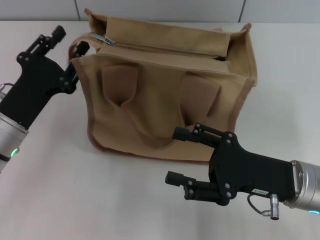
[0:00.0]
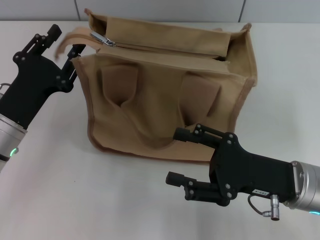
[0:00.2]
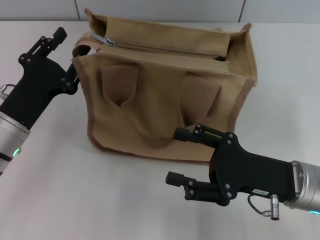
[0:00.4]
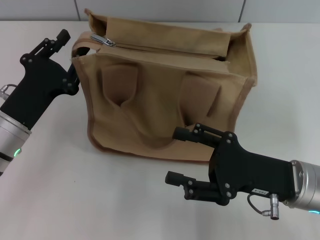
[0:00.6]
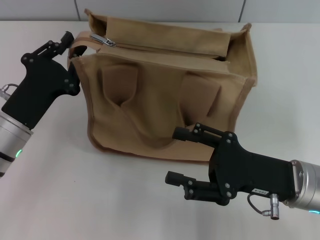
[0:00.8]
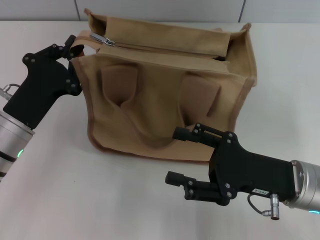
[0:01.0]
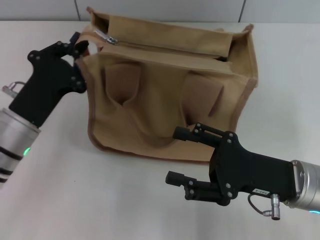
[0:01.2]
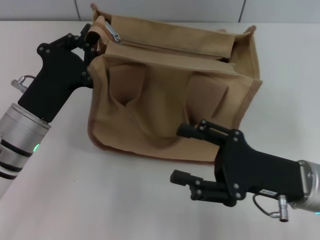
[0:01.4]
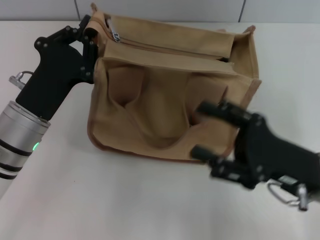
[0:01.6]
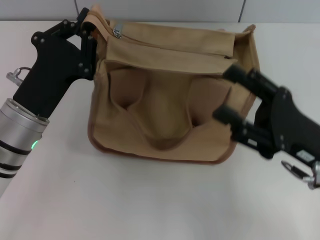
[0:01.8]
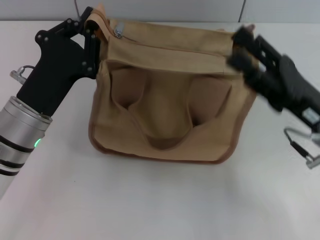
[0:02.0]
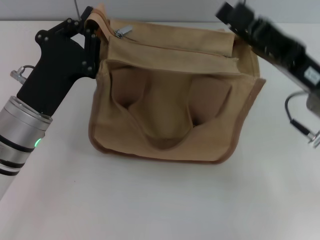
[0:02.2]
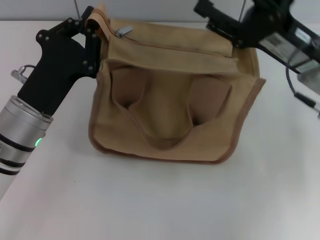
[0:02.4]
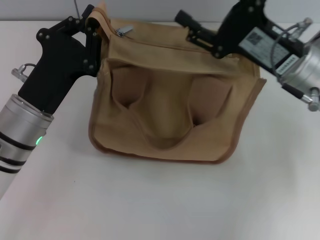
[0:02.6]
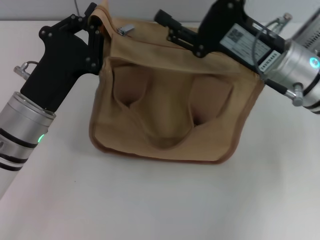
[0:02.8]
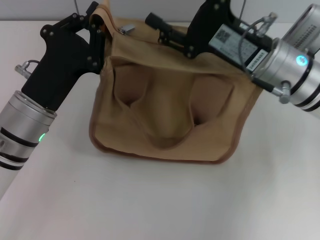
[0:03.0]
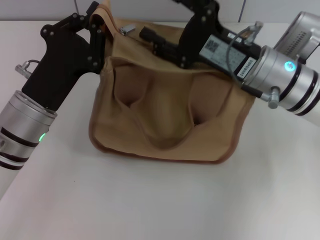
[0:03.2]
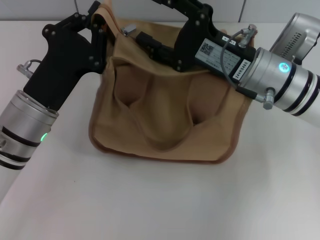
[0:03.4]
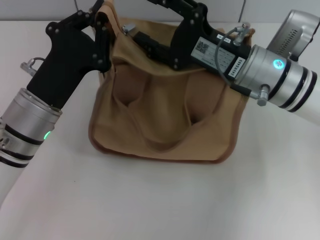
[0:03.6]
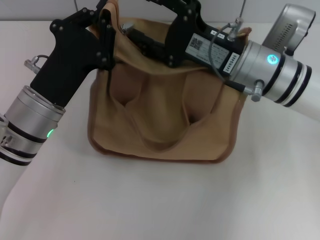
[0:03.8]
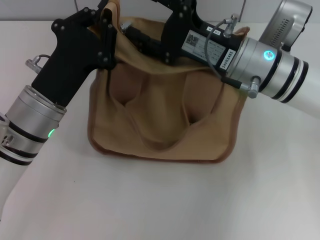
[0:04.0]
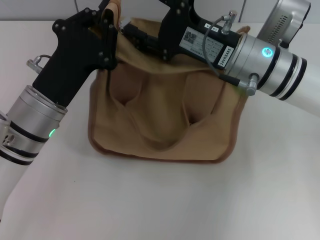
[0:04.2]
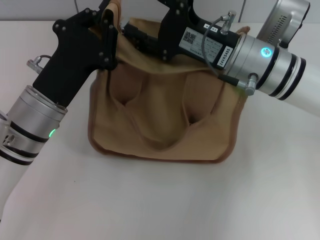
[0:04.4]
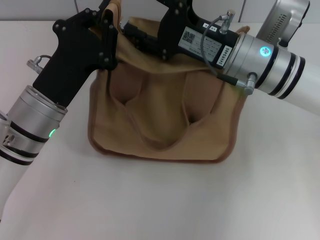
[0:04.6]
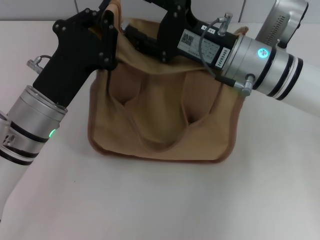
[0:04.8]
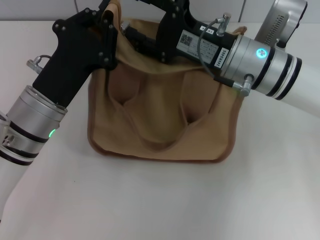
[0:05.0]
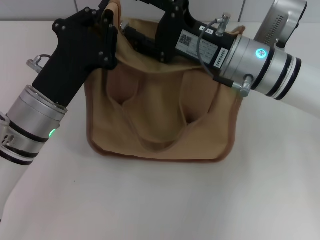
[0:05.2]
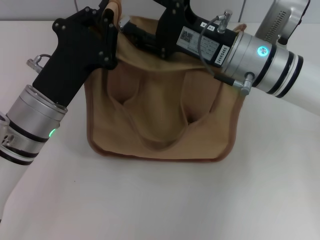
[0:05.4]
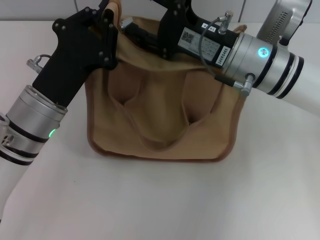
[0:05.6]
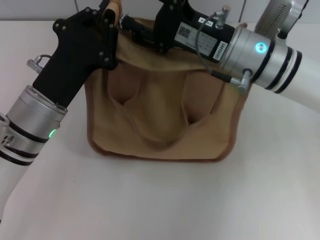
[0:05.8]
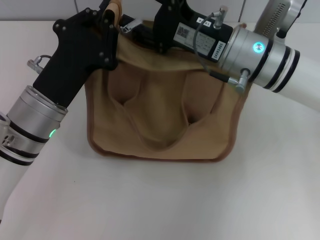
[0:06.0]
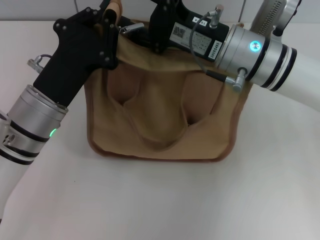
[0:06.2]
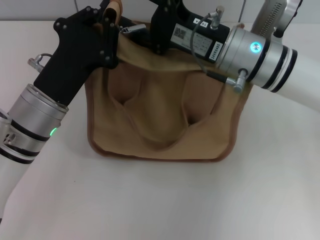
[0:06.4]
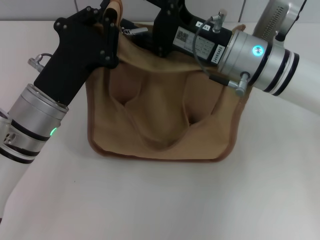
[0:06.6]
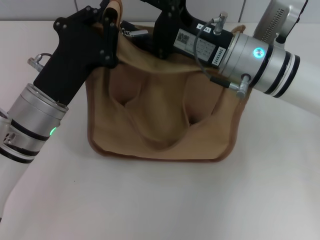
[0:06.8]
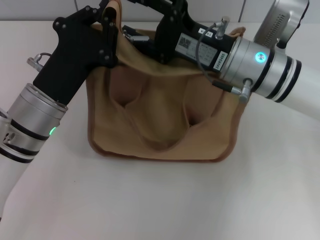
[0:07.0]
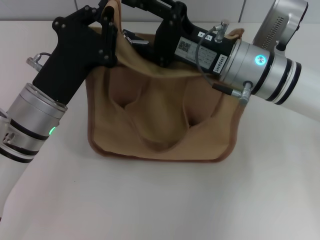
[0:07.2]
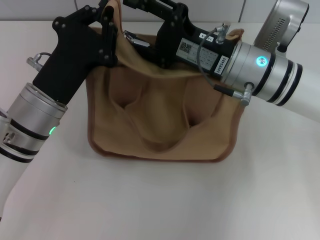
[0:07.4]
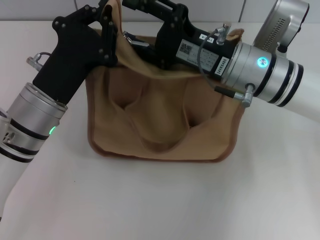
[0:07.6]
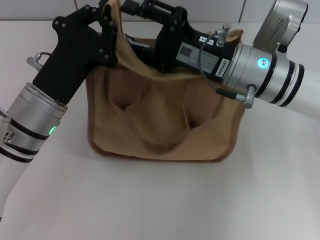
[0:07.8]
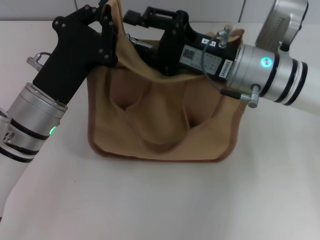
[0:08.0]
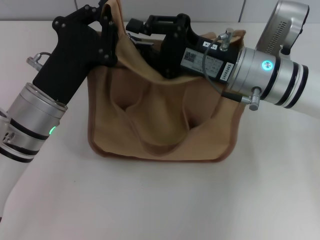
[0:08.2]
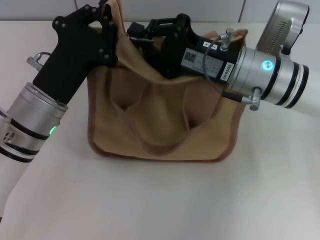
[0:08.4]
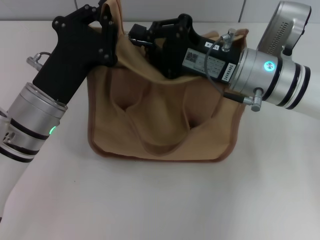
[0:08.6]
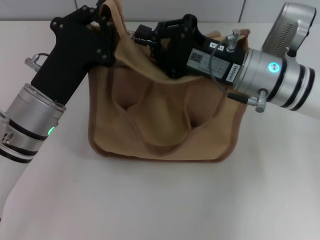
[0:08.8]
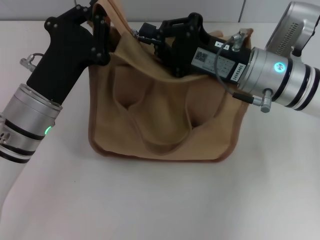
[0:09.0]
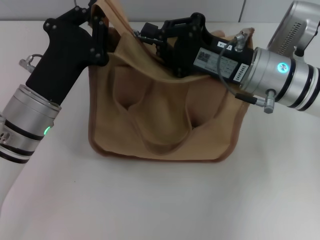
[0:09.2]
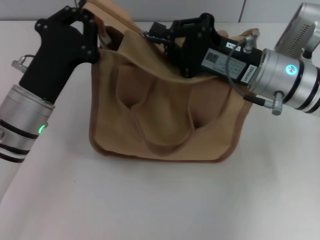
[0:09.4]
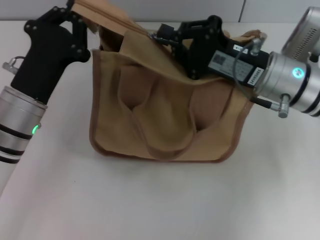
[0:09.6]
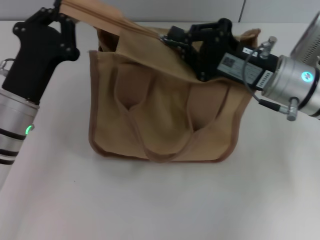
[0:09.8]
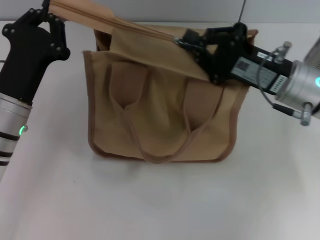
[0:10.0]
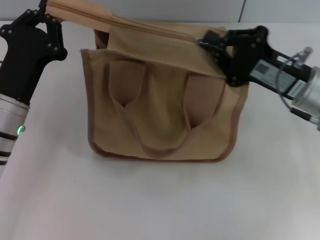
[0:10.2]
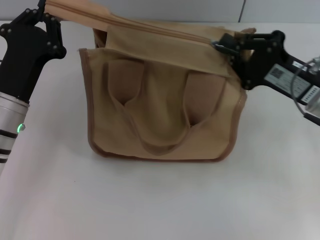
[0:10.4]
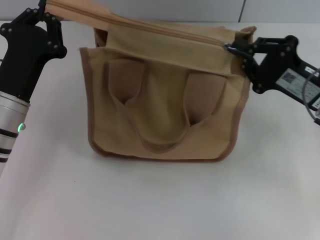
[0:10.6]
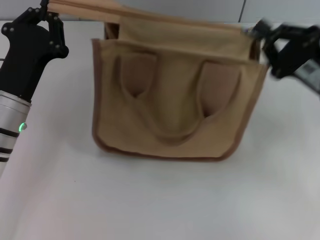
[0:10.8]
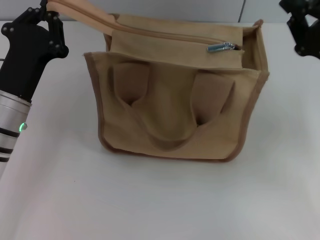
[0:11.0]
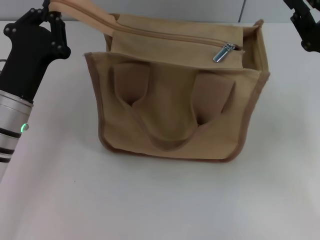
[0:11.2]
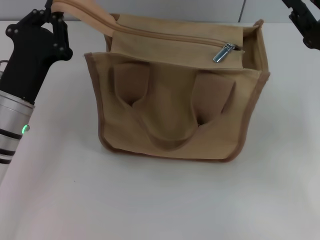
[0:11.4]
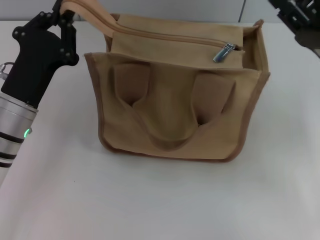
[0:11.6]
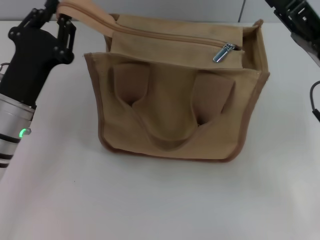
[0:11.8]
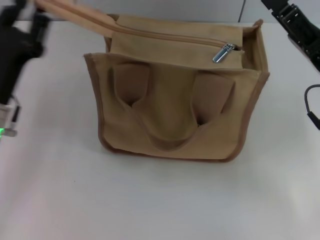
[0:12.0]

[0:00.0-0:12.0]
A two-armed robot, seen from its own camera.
Step, 0:00.0 to 0:10.8: Pull up the zipper with your right hand.
0:00.0 to 0:01.6: The left gripper closes up.
0:01.6 to 0:03.0: The right gripper moves forward, to the left and upward, about 15 cm.
0:04.4 to 0:07.6: The grippers make only small movements.
0:07.6 to 0:09.0: The right gripper closes.
0:09.0 to 0:10.4: The right gripper goes some 10 cm to the right.
0:10.4 to 0:12.0: The right gripper opens its fingers.

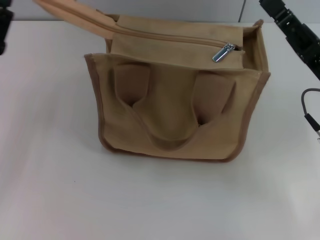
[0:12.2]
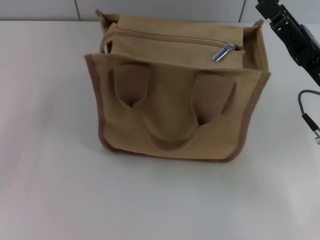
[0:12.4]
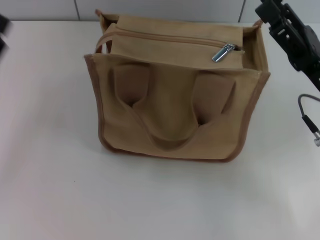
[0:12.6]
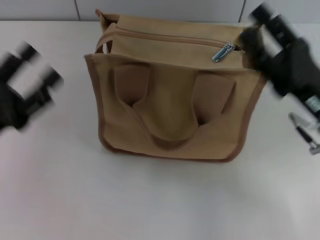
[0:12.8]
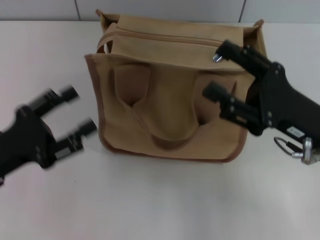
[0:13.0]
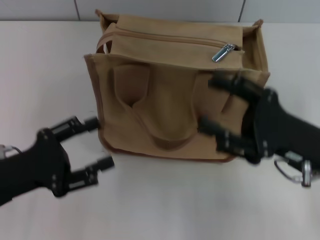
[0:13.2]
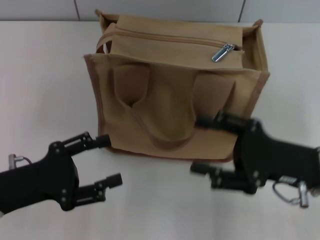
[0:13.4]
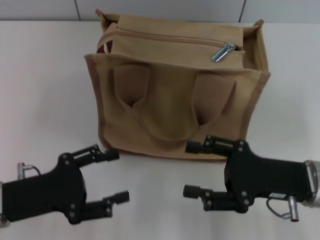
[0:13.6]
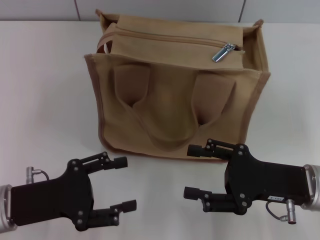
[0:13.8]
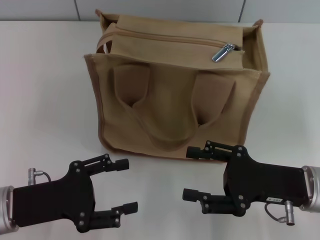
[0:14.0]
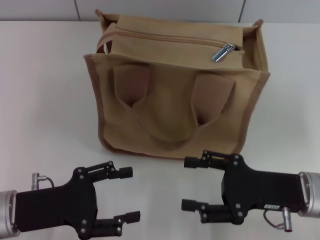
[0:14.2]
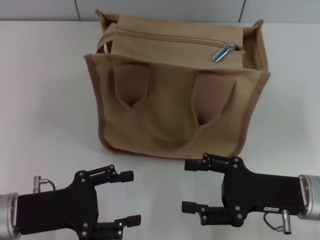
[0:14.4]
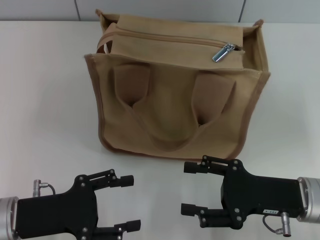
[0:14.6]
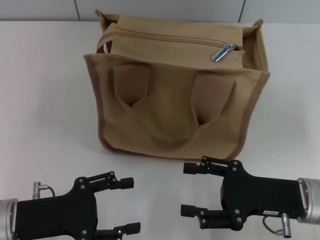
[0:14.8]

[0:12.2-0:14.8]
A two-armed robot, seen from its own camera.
0:12.2 to 0:13.4: The left gripper moves backward, about 5 cm, and opens up, while the right gripper moves some 5 cm.

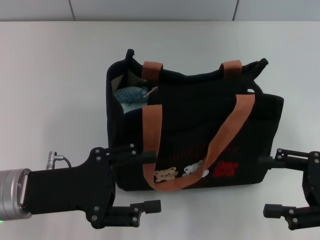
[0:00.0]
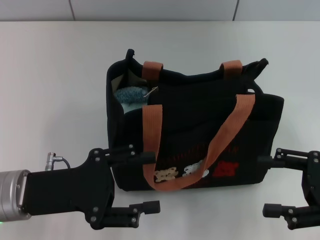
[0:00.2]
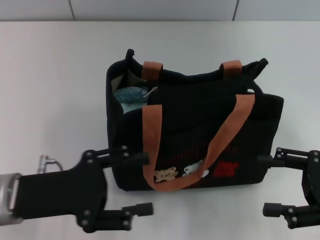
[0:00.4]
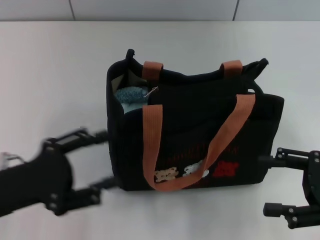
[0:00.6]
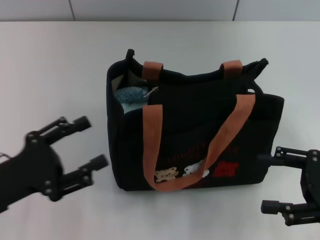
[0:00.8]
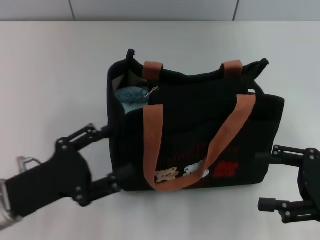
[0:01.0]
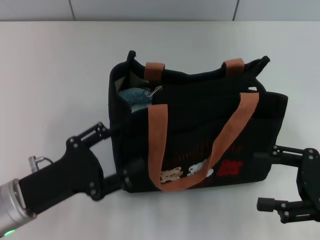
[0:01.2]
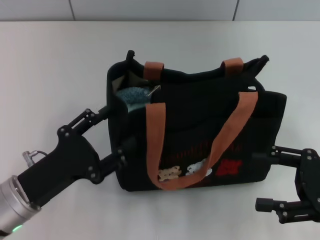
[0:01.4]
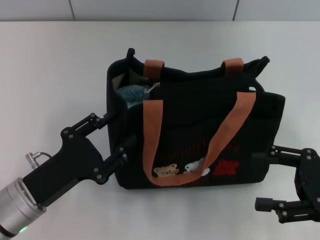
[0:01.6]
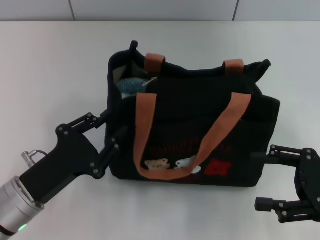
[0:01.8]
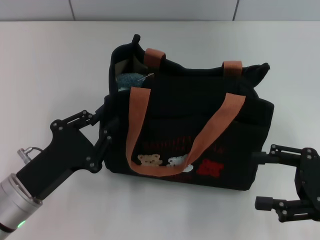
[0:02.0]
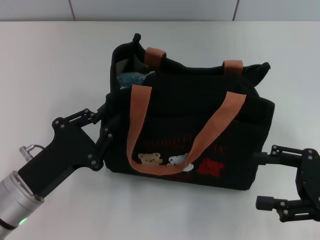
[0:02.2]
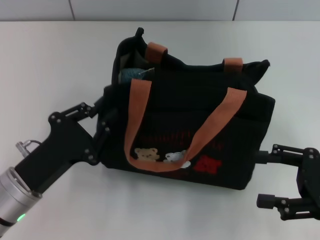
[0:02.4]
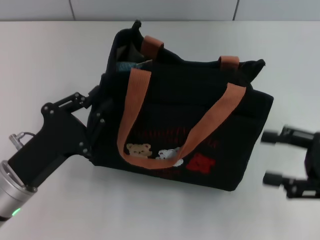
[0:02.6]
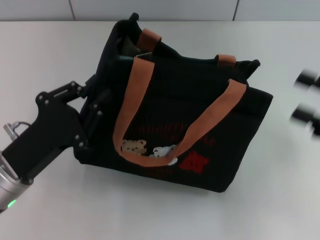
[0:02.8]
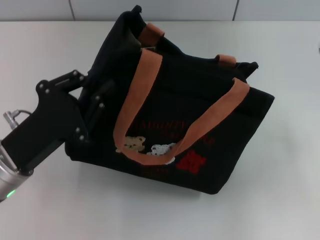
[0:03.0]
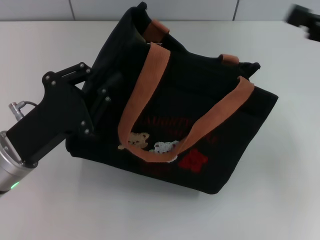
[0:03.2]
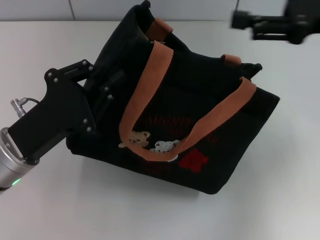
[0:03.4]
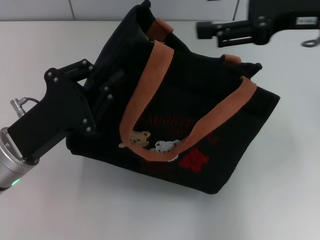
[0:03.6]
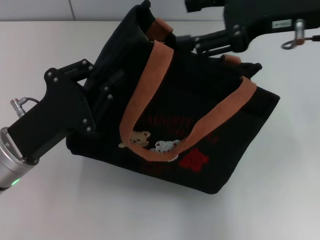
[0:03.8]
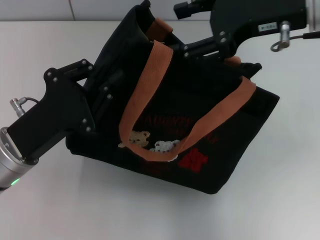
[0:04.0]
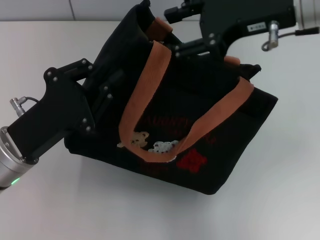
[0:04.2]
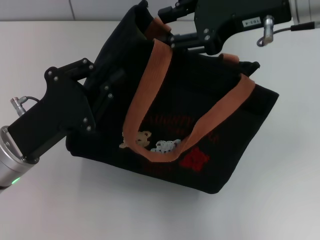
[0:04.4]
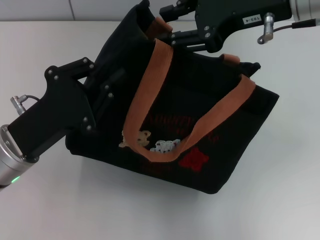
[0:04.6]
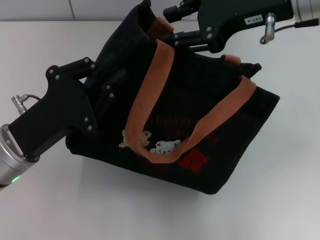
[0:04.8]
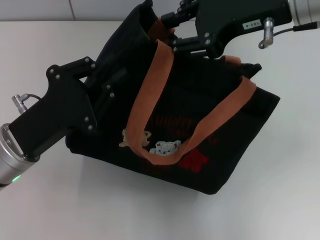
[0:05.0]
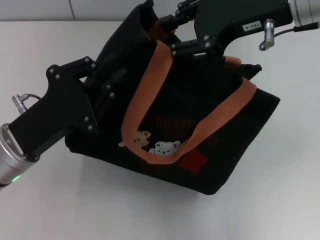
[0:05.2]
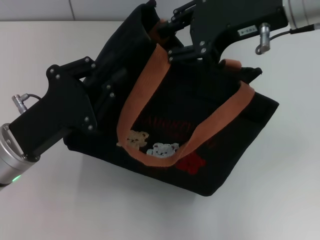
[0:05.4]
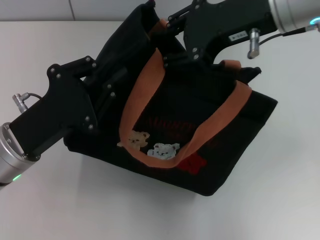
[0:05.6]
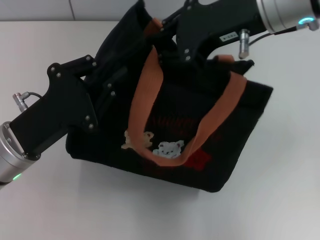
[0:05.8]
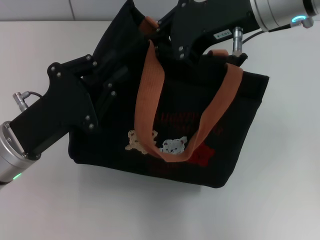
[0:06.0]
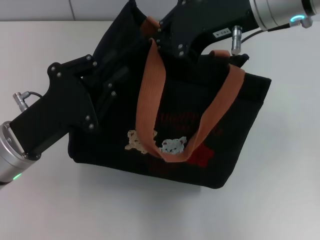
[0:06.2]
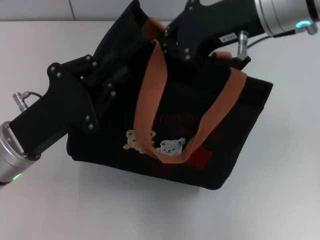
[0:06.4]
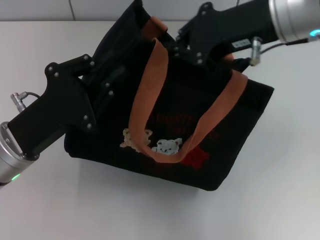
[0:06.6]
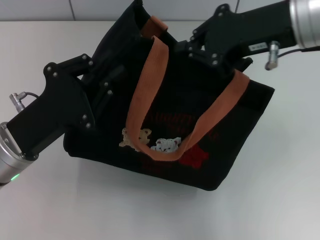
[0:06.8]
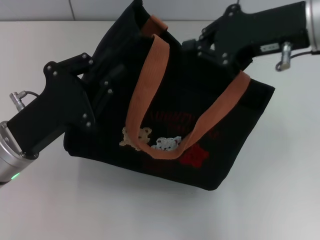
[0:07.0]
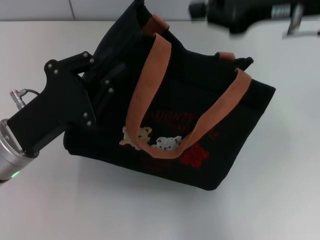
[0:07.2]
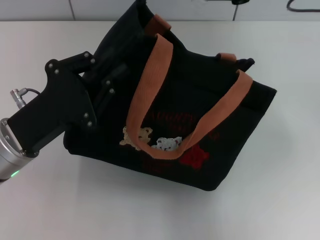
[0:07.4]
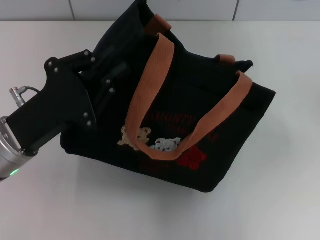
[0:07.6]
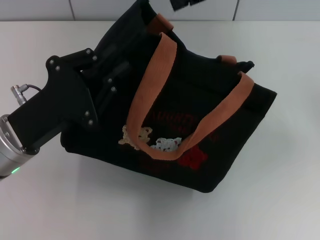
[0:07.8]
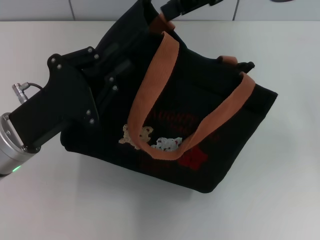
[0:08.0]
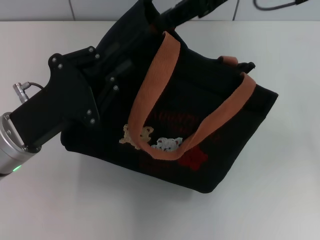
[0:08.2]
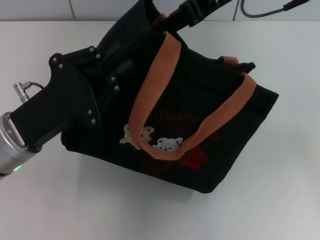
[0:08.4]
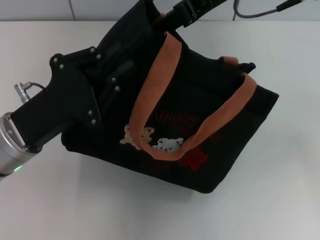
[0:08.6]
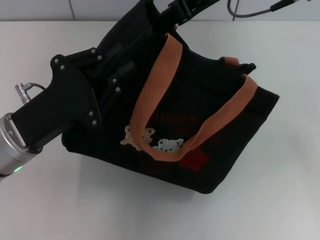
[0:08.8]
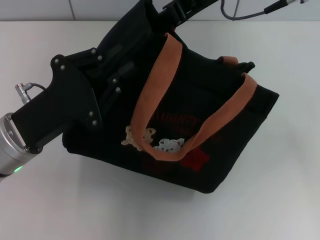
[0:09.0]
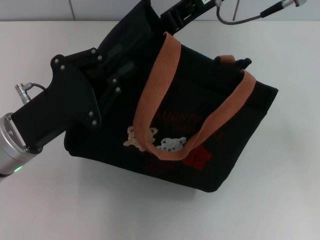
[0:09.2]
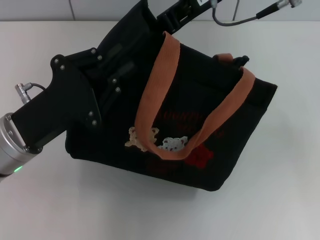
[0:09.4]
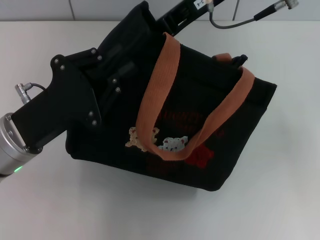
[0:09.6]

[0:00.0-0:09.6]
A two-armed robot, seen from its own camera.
0:00.0 to 0:01.6: The left gripper travels downward by roughly 5 cm.
0:01.6 to 0:03.2: The right gripper travels upward and forward by about 15 cm, while the left gripper shifts by roughly 5 cm, and closes.
0:03.2 to 0:04.8: The right gripper heads to the left and upward, covering roughly 15 cm, and closes up.
0:04.8 to 0:06.4: The right gripper closes up.
0:06.4 to 0:08.0: The right gripper changes place by about 5 cm.
0:08.0 to 0:09.6: The right gripper heads to the left, covering some 5 cm.
